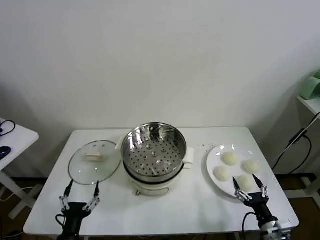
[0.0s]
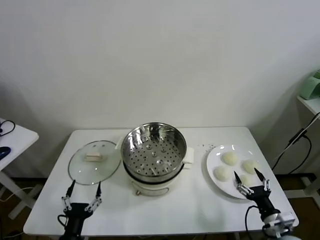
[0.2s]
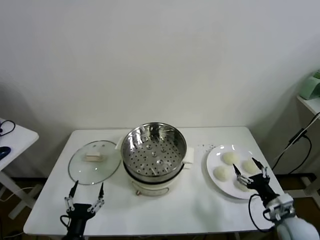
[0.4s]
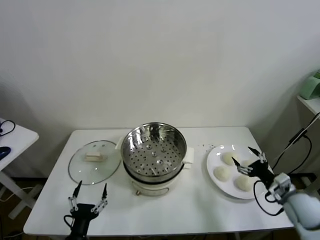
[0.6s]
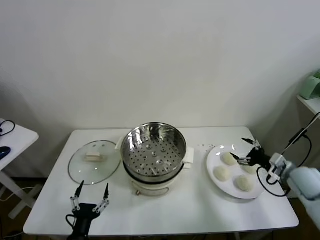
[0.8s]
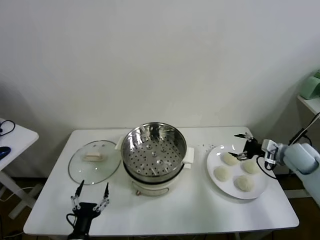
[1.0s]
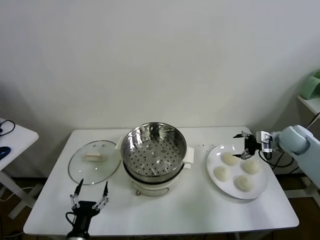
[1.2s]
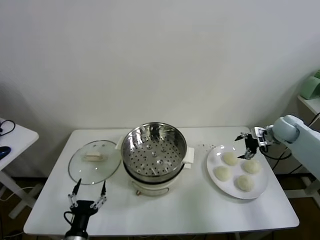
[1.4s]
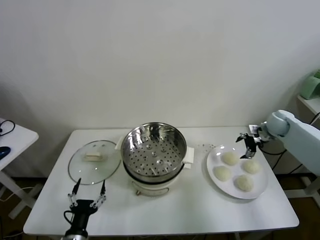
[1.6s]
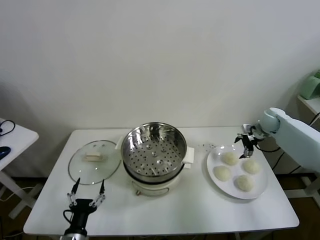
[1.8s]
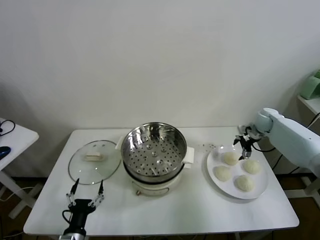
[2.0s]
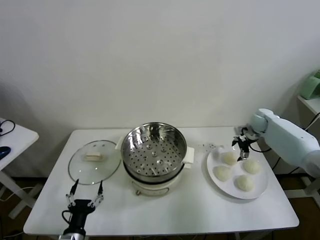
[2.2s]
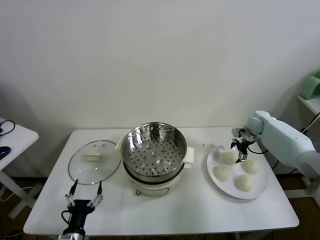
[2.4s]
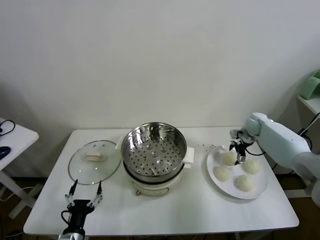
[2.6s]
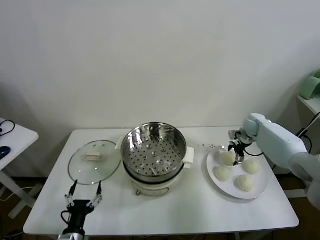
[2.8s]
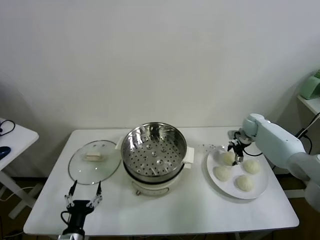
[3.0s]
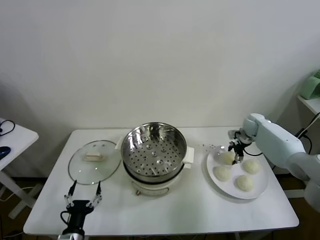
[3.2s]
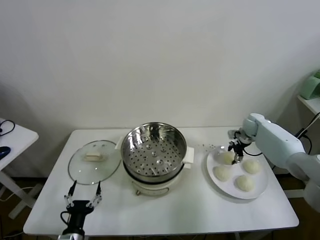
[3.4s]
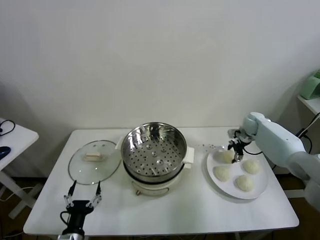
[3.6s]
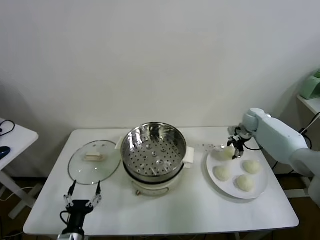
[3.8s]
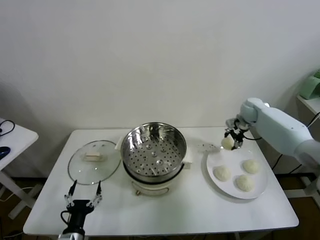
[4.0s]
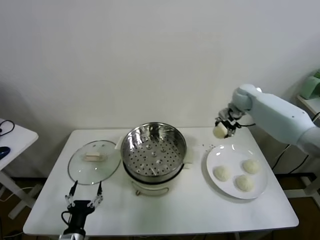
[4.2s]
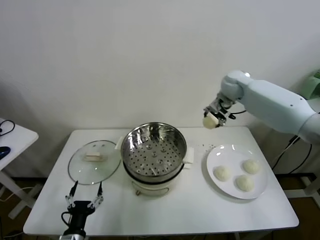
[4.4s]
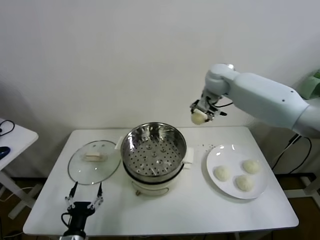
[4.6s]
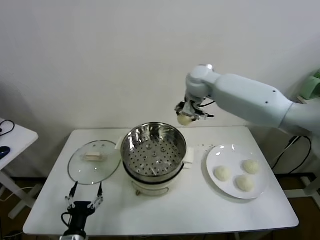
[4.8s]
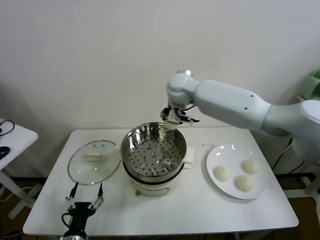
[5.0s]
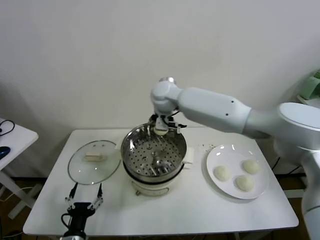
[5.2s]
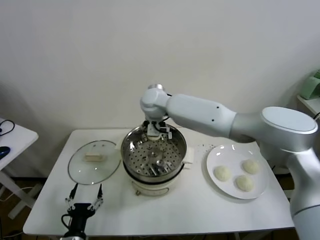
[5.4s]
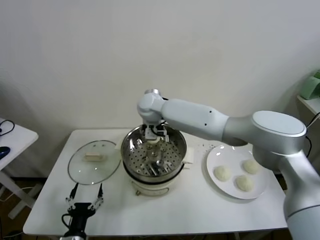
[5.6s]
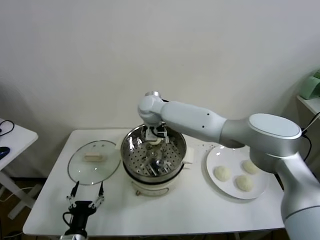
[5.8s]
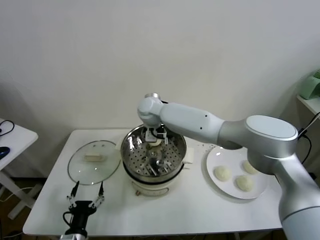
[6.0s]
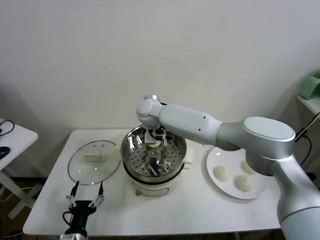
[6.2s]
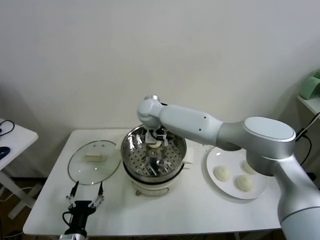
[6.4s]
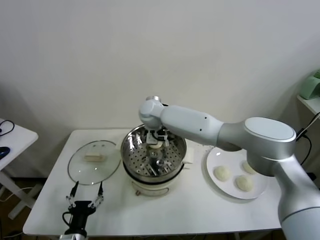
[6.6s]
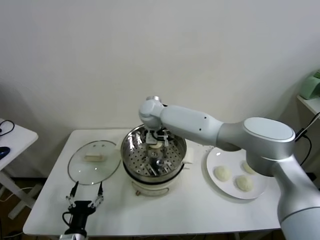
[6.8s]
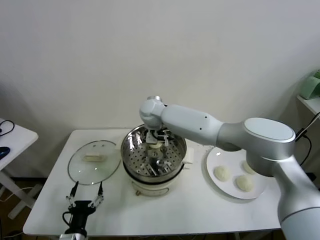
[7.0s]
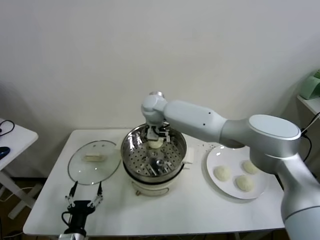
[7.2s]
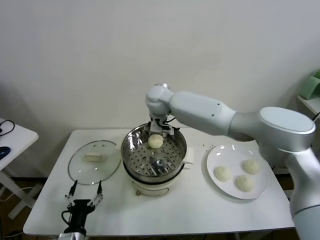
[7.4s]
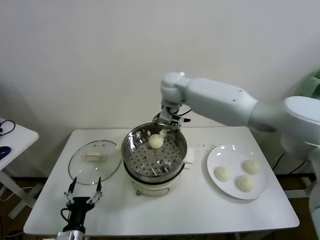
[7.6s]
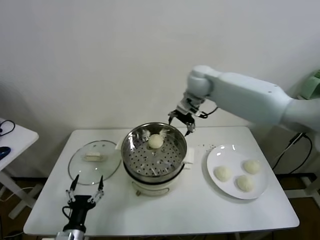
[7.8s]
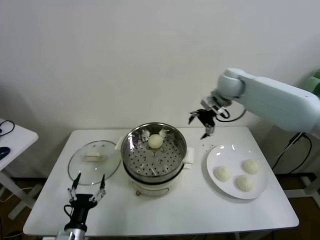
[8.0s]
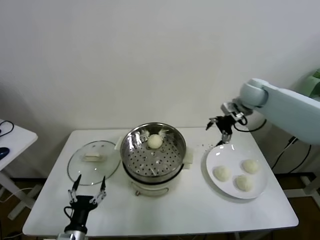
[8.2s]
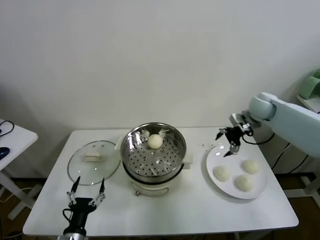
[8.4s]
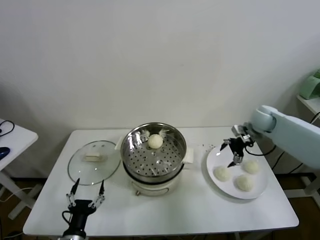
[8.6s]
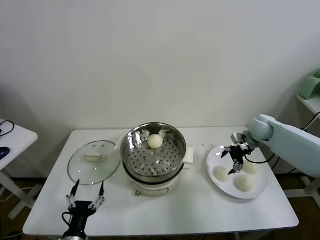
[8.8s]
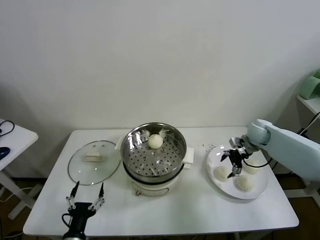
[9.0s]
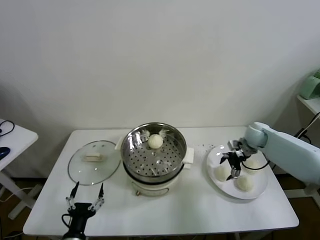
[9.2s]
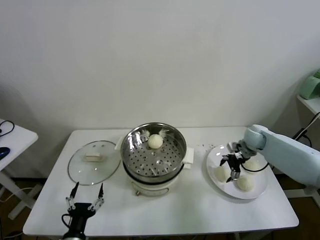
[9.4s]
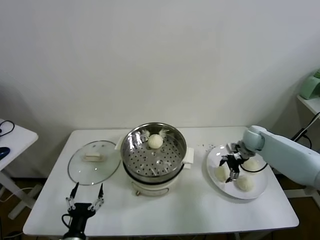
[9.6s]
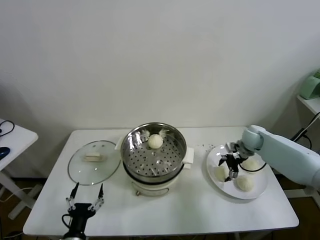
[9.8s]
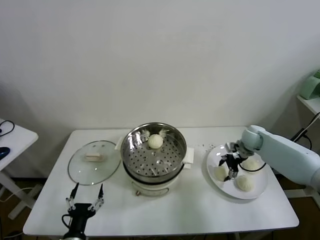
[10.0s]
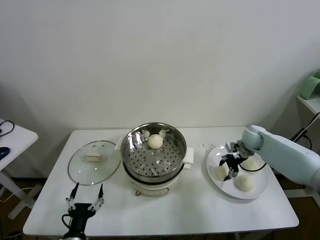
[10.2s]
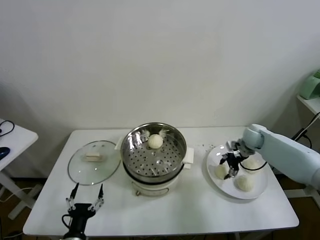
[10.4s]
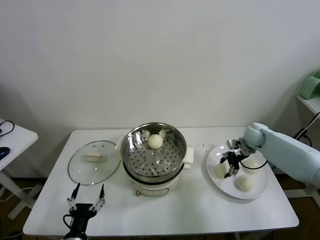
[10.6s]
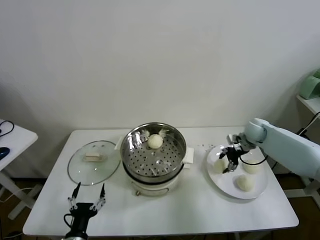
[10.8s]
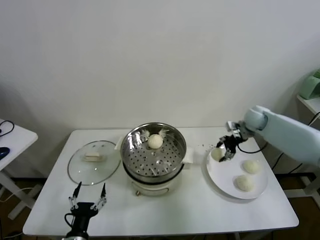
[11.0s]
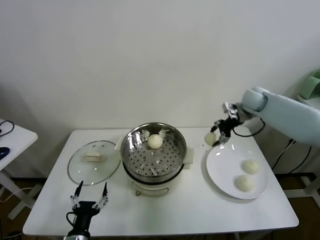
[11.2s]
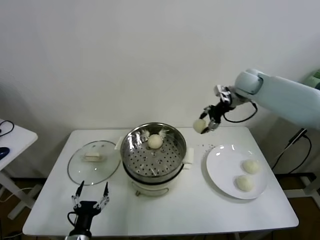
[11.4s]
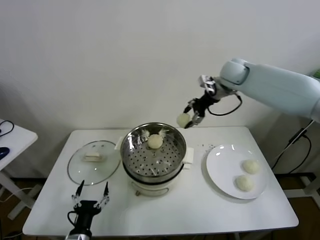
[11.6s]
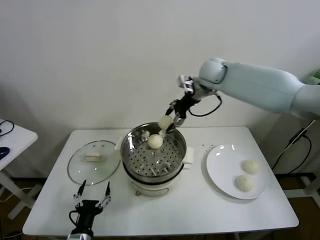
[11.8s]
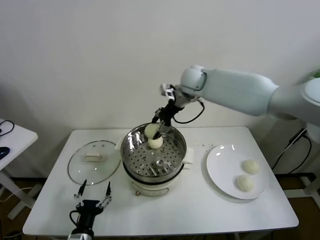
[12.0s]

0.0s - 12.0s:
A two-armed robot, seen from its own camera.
Task of the whole recording: take steamed baozi put them in steamer.
Step, 0.0s - 3.0s: Grasp the baozi in the plate with right gripper.
Step, 3.2s - 7.0s: Place the baozi on the steamer with right gripper.
Step, 7.2s - 10.0s: Grasp the baozi in the plate with right gripper.
1.6s - 3.0s: The right gripper is displaced downward by about 5 cm.
3.0s - 4.4s: The right gripper is displaced upward and to the left by approximately 30 cm, and closes its fingers.
4.4s - 6.0s: The right gripper is displaced to the left by roughly 25 cm.
6.0s - 7.6s: The right gripper heads to the right and upward, covering approximately 15 cm, and opens up.
7.6s - 9.0s: The right gripper heads to the right and downward, covering approximately 35 cm.
9.0s - 10.4s: The right gripper closes.
10.4s - 12.0s: The right gripper moves to the left and upward, roughly 35 cm.

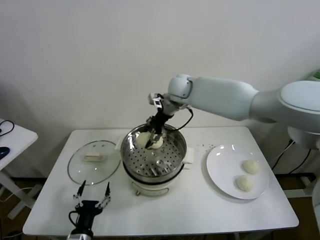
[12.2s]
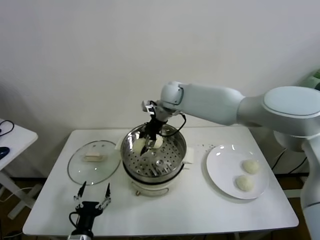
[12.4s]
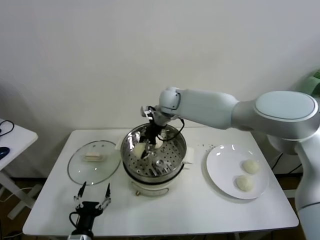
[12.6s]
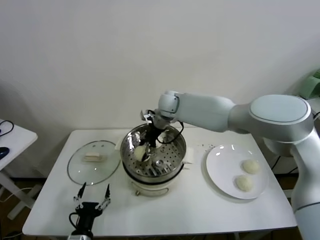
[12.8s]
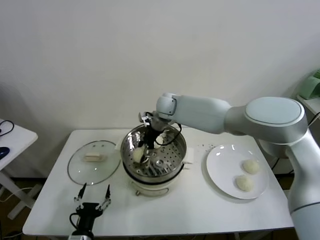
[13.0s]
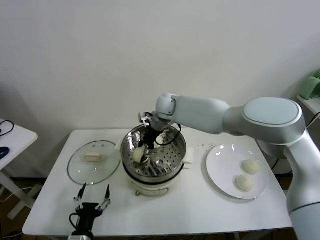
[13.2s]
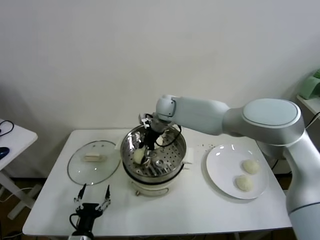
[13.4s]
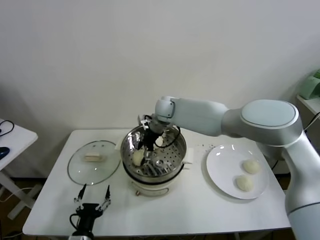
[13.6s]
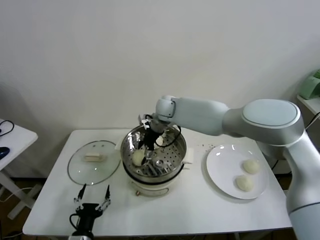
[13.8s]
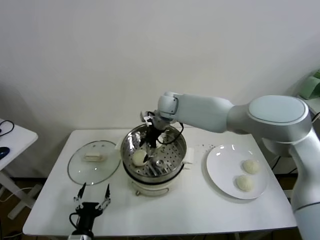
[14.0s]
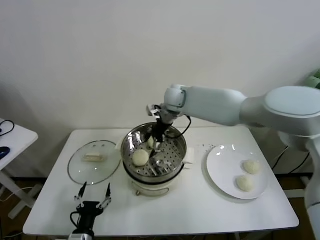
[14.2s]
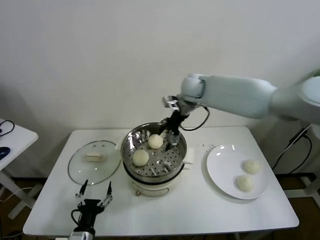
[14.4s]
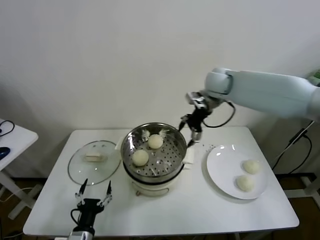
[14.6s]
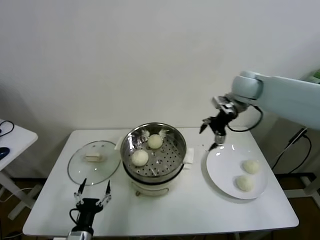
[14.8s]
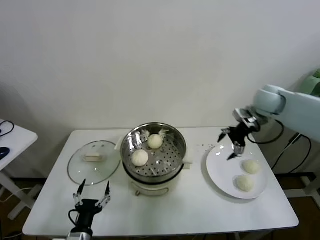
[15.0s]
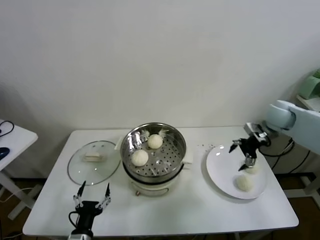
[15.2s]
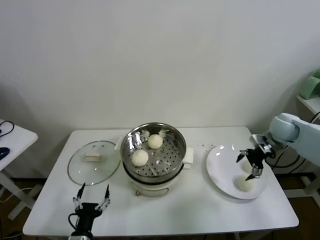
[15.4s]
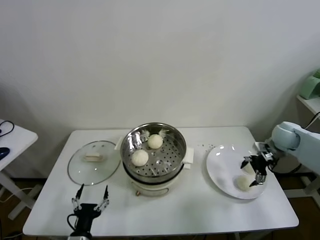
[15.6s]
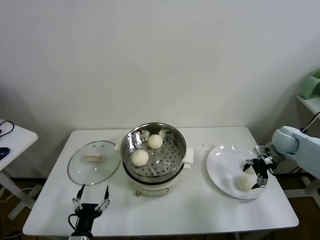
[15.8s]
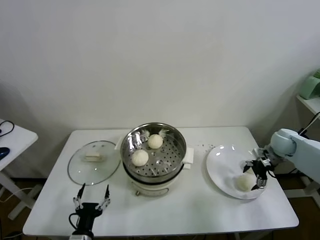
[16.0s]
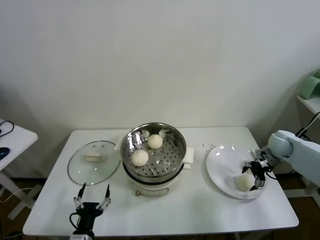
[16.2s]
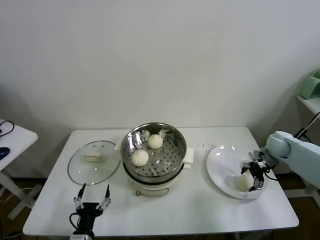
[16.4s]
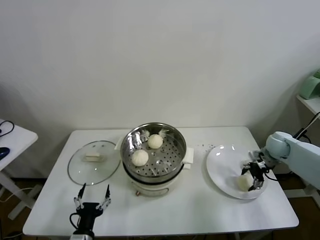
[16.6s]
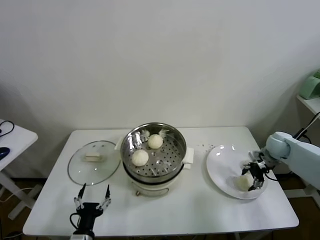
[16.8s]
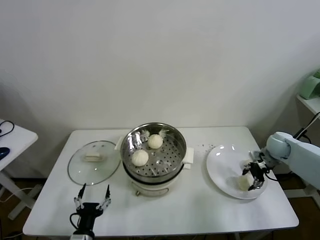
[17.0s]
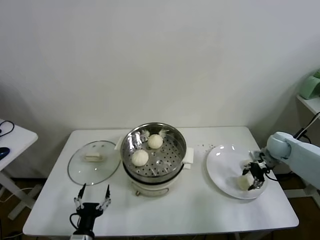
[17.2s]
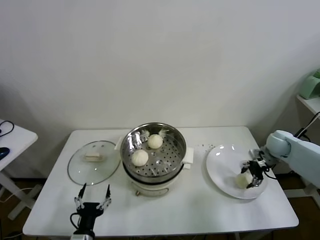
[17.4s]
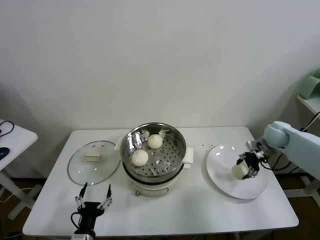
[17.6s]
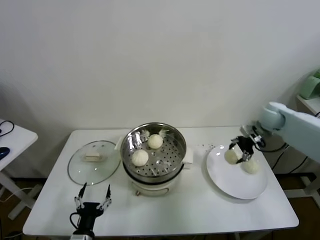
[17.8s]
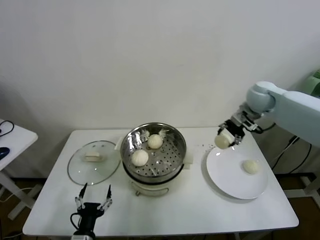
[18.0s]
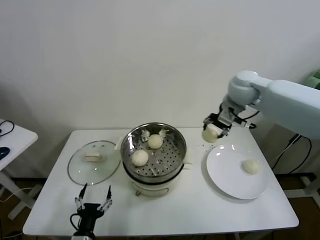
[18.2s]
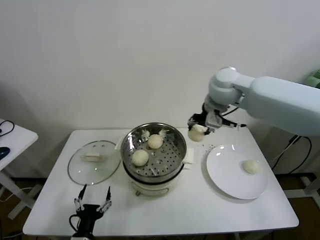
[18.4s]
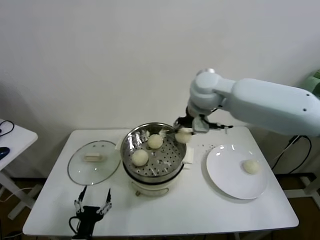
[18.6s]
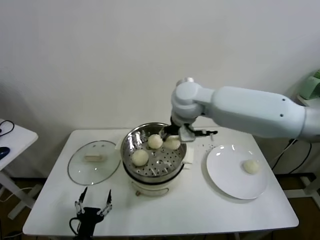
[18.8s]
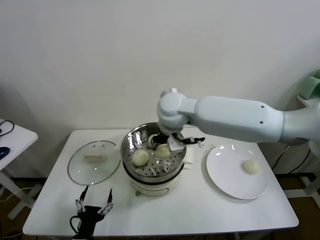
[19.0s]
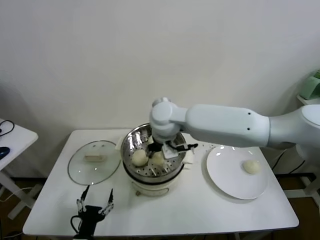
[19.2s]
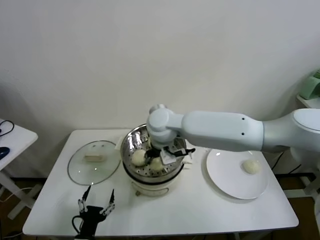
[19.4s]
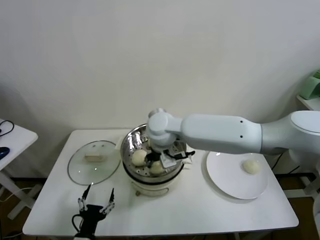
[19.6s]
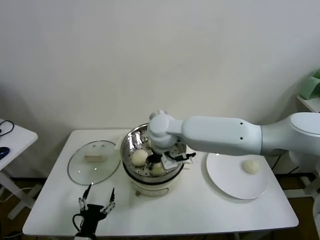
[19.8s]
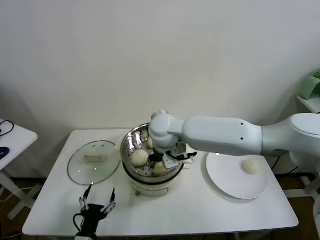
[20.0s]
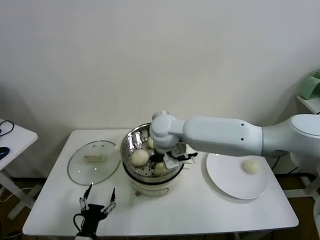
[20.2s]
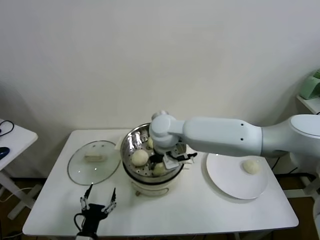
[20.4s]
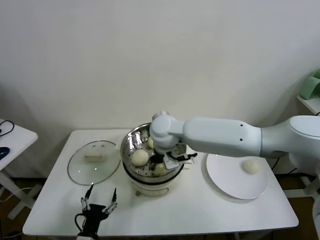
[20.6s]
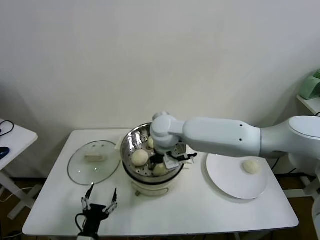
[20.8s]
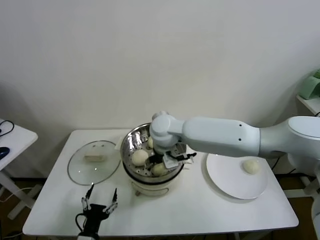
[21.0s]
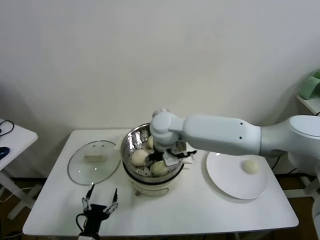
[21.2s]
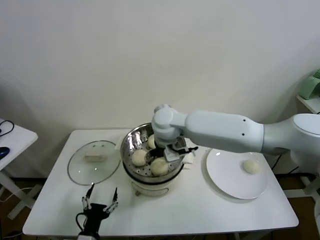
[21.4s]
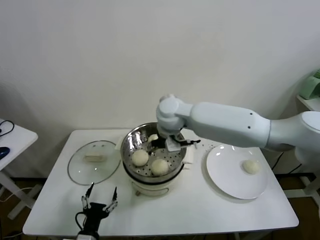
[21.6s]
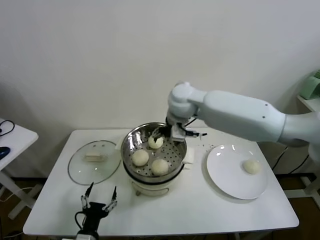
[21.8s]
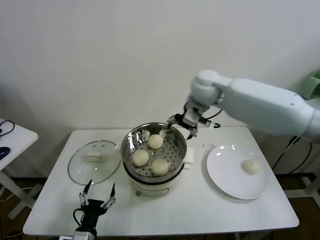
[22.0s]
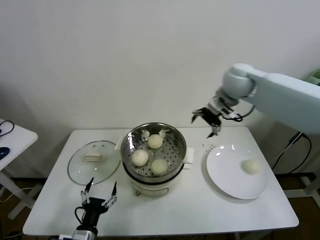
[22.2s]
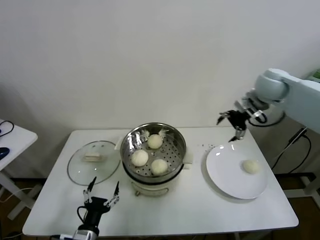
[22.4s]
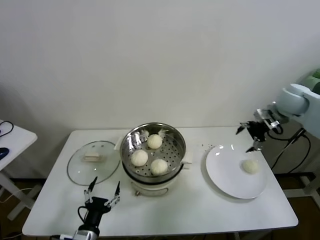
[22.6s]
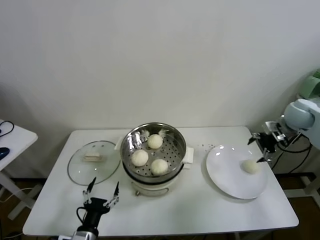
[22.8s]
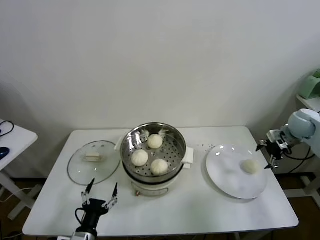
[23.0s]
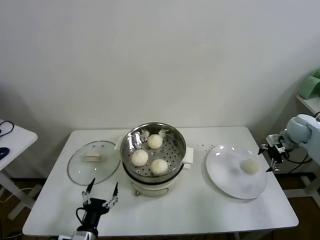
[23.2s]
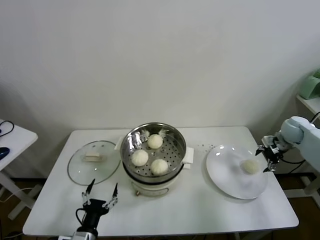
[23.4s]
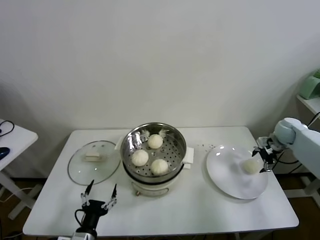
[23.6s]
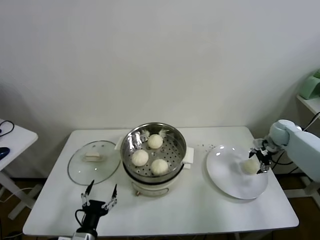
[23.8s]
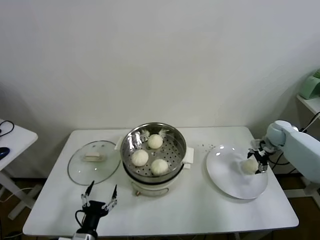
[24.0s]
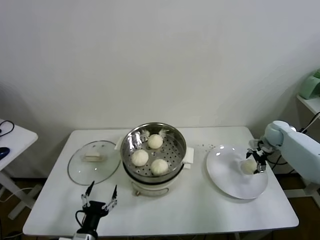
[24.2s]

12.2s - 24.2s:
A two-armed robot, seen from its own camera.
Task of the whole recording: take steamed baozi put them in steamer.
Step, 13.8s - 16.4s: Grasp the baozi in the plate with right gripper.
Step, 16.8s - 21.0s: Place the baozi on the steamer with right gripper.
12.2s - 13.8s: The right gripper moves downward, roughly 5 cm, and opens.
13.8s - 15.2s: The right gripper goes some 40 cm to the right.
15.2s - 16.6s: The right gripper moves downward, about 10 cm, and closes.
16.6s - 18.2s: The right gripper is displaced upward and to the left by about 30 cm, and closes up.
18.2s - 19.8s: The right gripper goes about 25 cm to the left.
19.8s - 21.2s: The right gripper opens up.
21.2s - 22.6s: The right gripper is displaced to the right by approximately 40 cm.
22.6s - 24.2s: The right gripper travels downward by some 20 cm.
